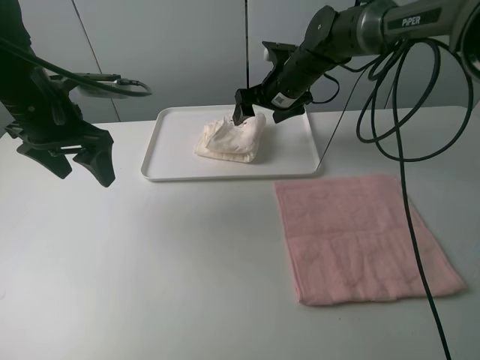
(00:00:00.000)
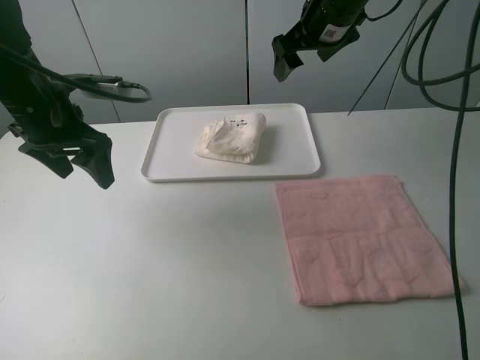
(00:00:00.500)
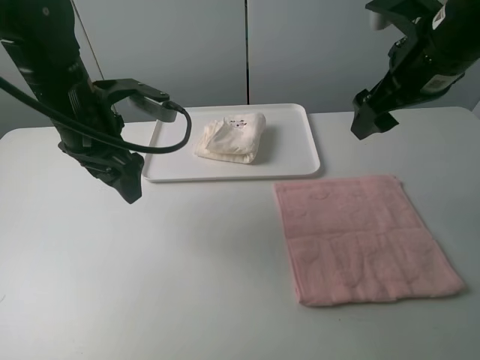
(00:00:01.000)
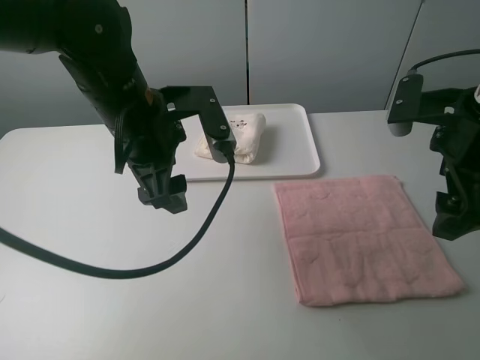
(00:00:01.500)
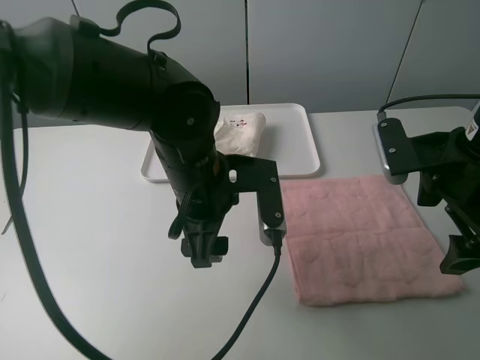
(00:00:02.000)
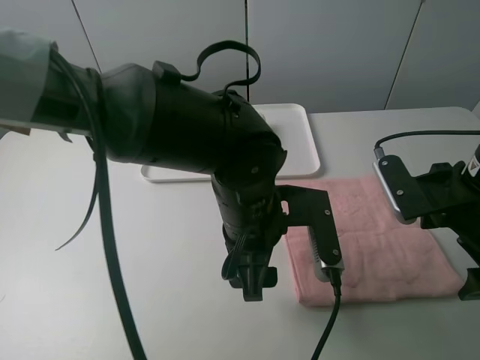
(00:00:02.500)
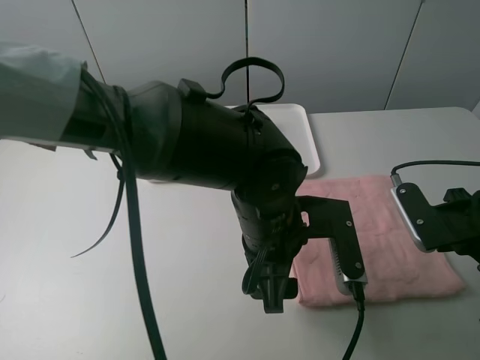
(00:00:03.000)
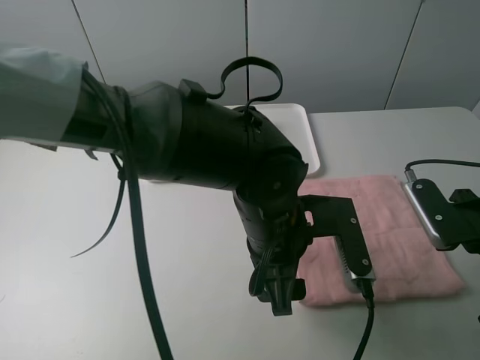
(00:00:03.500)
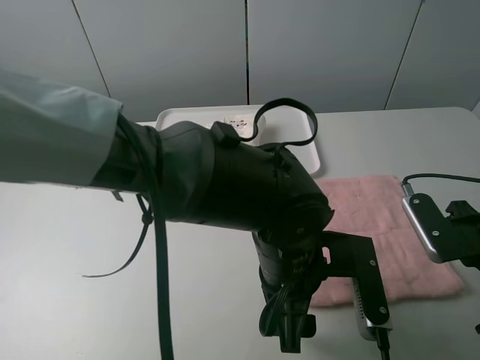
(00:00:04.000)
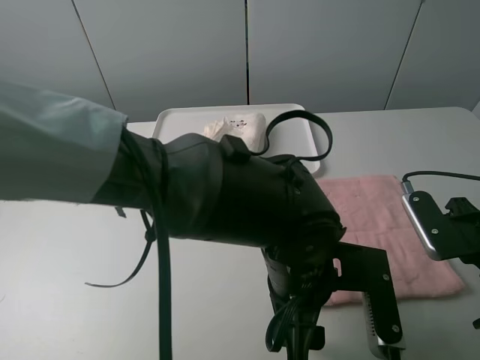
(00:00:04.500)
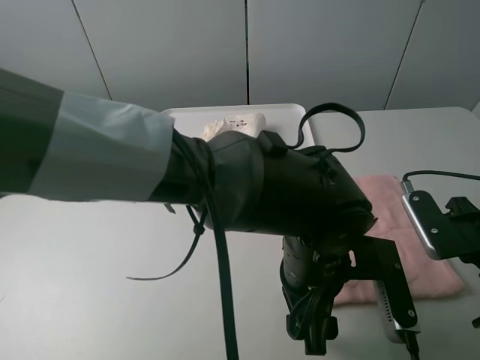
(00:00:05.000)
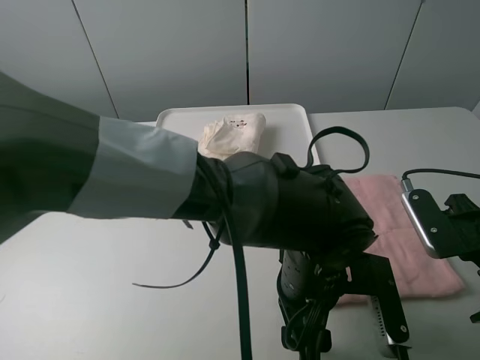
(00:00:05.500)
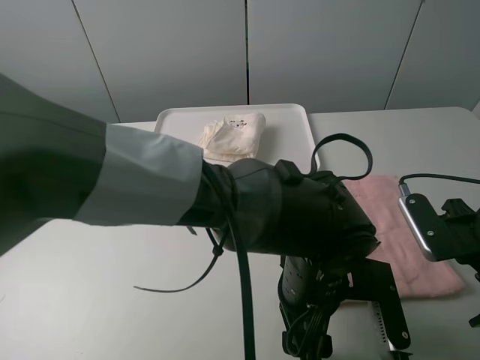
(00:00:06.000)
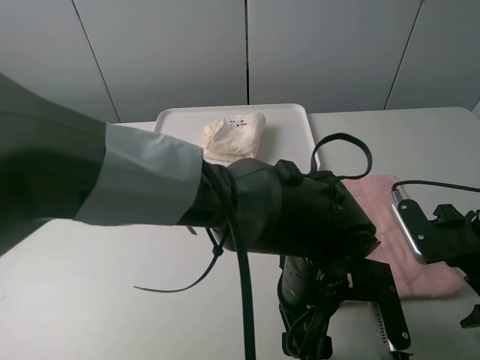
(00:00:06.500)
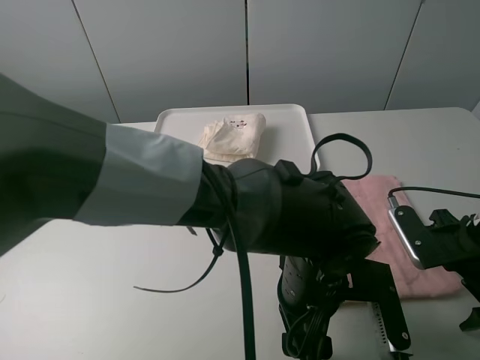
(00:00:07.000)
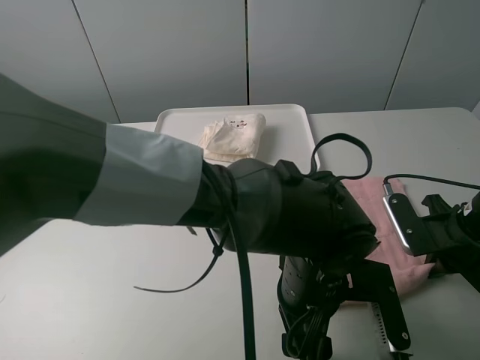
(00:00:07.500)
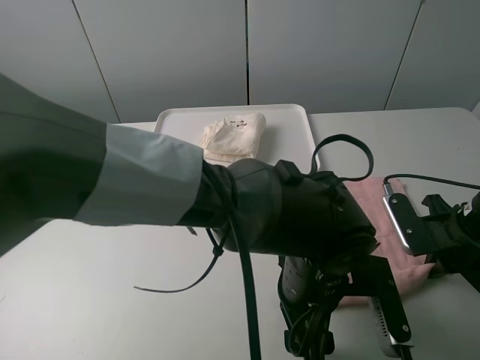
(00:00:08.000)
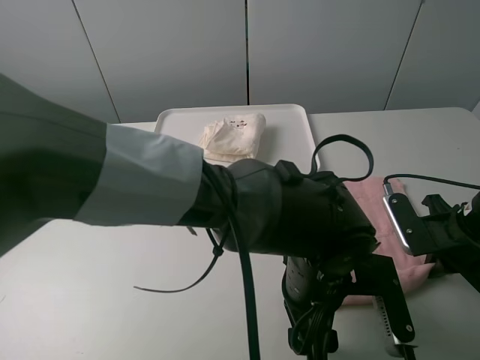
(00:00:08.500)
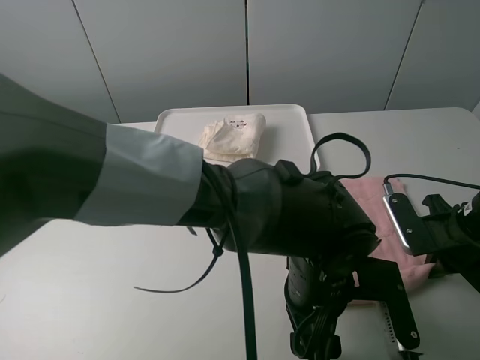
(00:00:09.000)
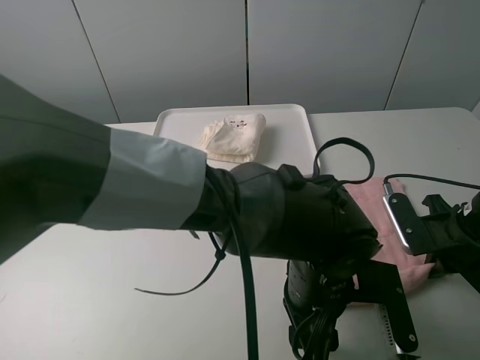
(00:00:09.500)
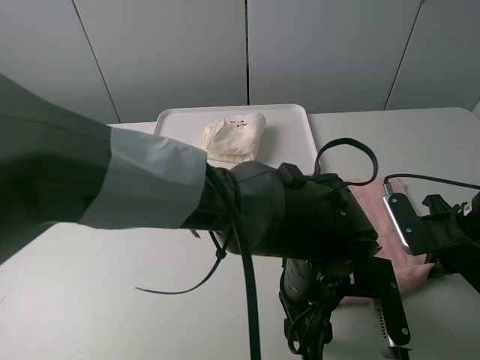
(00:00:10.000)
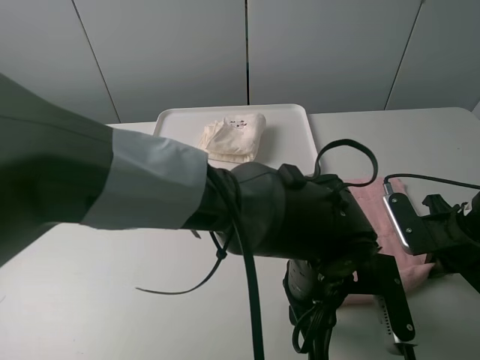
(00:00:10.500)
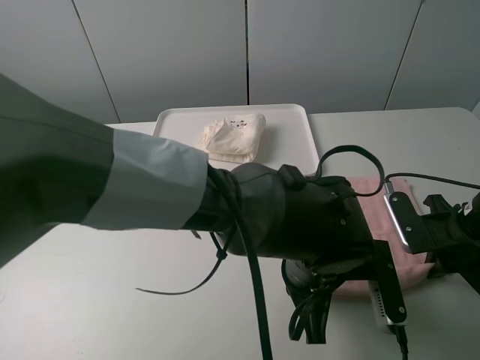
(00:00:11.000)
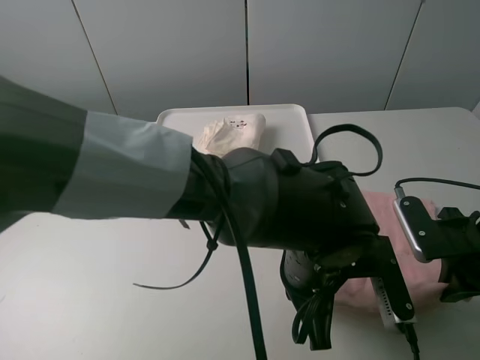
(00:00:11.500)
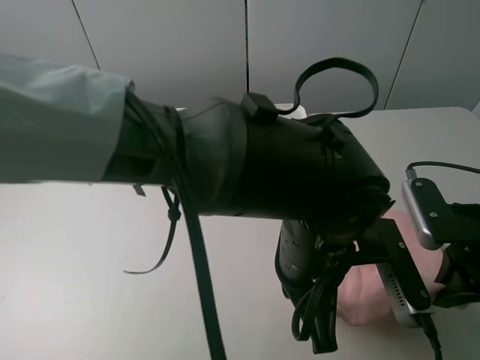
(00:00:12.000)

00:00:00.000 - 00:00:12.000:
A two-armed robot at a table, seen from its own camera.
Task of the whole recording: fold one of the towels by two grippers and place it on the tray,then fold another towel by two grippers and place it on the folded towel.
Step, 00:00:00.500 - 00:00:11.000: Grasp the pink towel with the left gripper.
00:00:00.000 - 00:00:02.000: The left gripper travels to the right and backward by approximately 20 cm; the right gripper moves backward and to the right, about 30 cm.
00:00:02.000 - 00:00:04.000: The right gripper travels downward and to the right by roughly 10 cm. Meanwhile the left gripper is displaced to the right and backward by some 10 cm.
00:00:06.000 - 00:00:08.000: The right gripper closes its fingers.
00:00:08.000 - 00:00:10.000: The two grippers keep their place.
00:00:10.000 - 00:00:12.000: Both grippers move upward, roughly 5 cm. The left gripper closes its fingers.

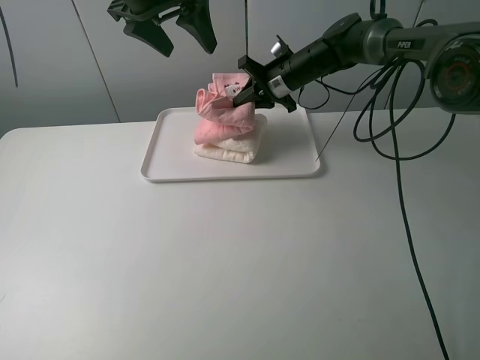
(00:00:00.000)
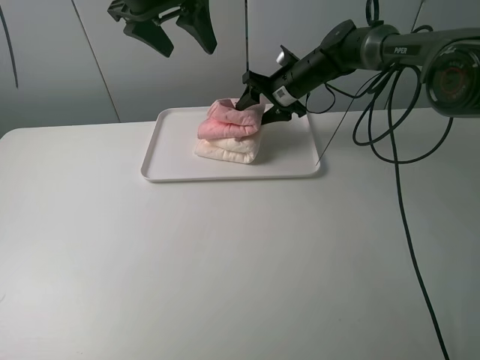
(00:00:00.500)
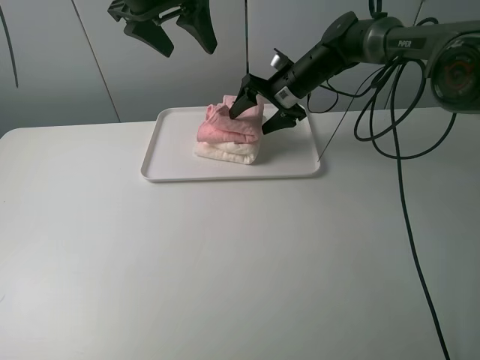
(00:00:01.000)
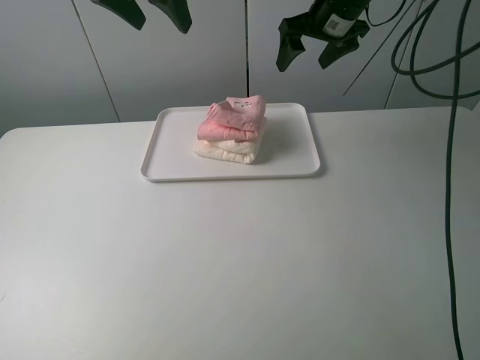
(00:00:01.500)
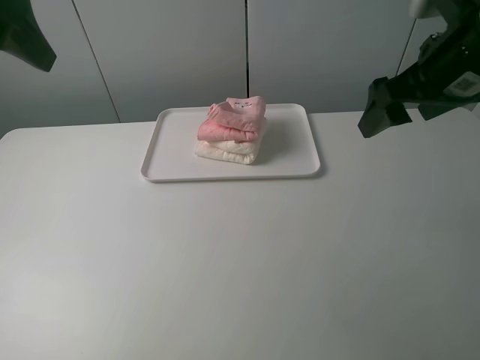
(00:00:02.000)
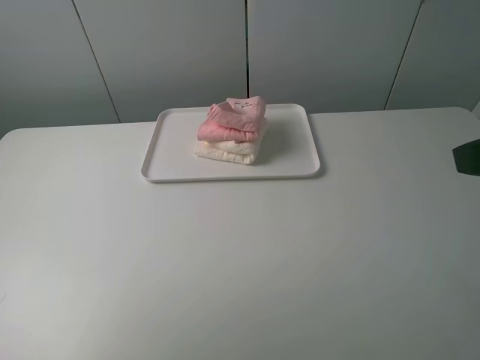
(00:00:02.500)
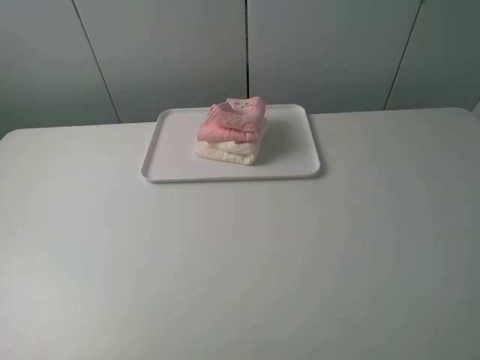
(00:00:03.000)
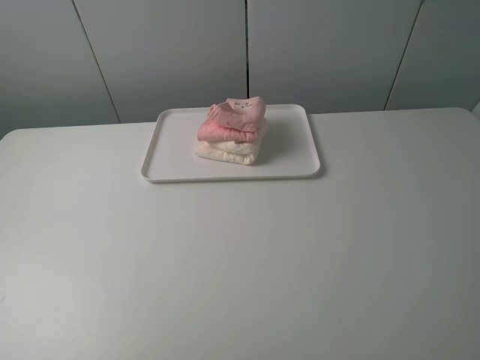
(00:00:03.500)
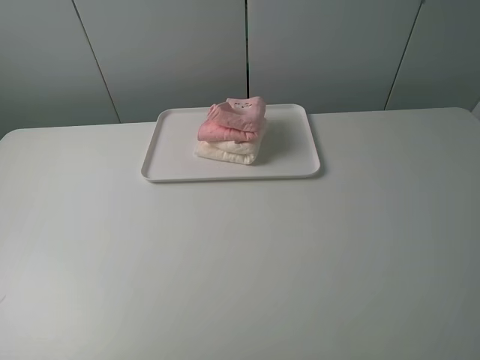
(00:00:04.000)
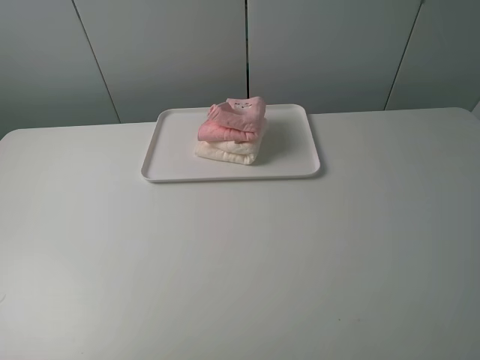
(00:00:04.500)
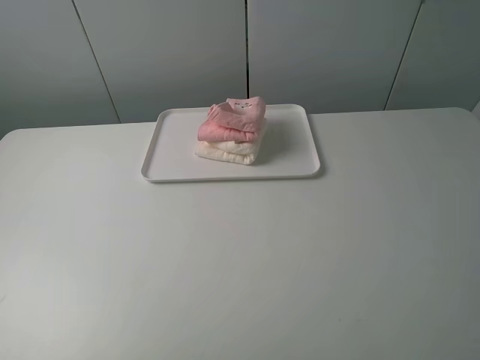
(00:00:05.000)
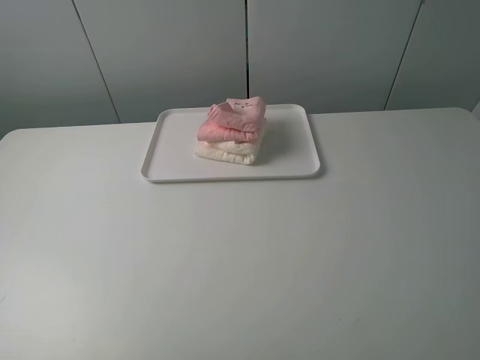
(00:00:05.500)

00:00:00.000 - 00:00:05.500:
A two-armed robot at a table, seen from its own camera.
Task of the whole recording: fold one of the towels by two grippers and place it on the tray,then fold another towel by two grippers and place it on the folded towel.
00:00:00.000 - 00:00:02.000: The right gripper shifts some 30 cm backward, upward and to the right, and opens up, while the left gripper heads backward and to the left, covering roughly 20 cm.
00:00:02.000 - 00:00:03.500: The right gripper is displaced backward by about 25 cm. The left gripper is displaced backward and downward by some 25 cm.
